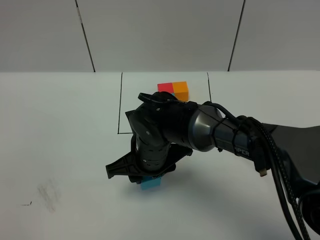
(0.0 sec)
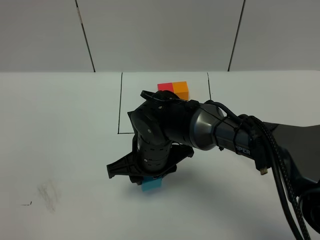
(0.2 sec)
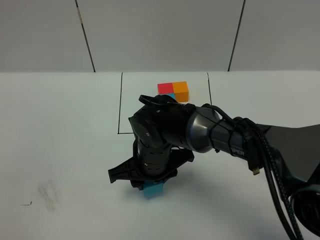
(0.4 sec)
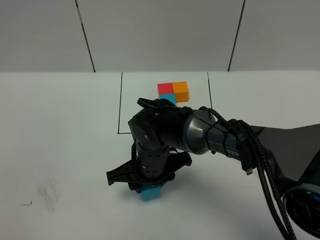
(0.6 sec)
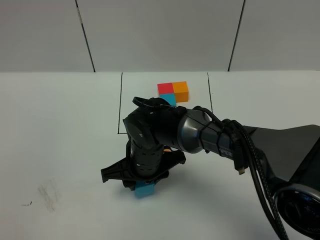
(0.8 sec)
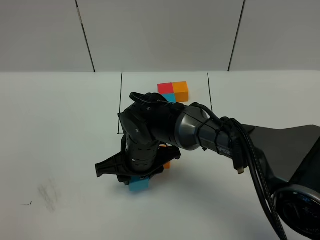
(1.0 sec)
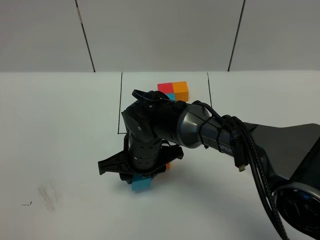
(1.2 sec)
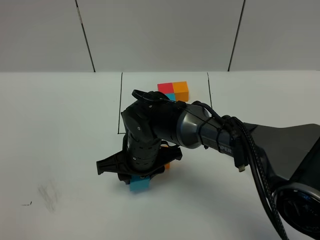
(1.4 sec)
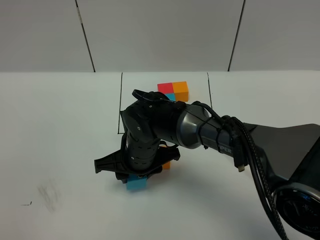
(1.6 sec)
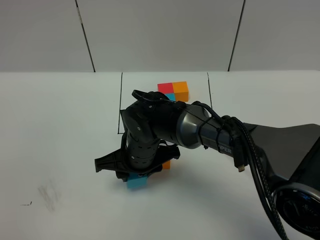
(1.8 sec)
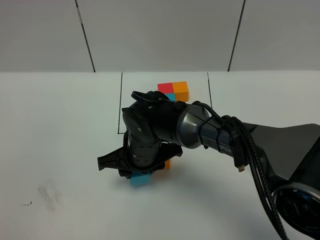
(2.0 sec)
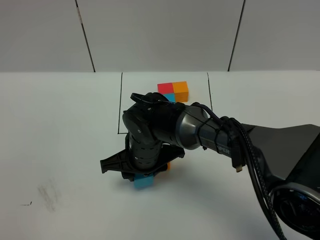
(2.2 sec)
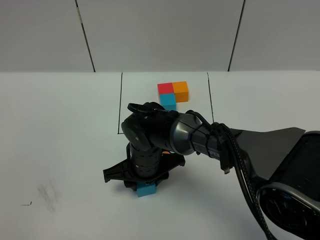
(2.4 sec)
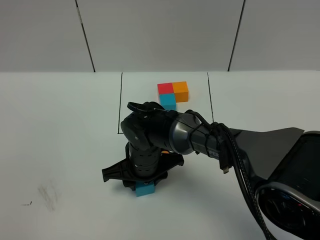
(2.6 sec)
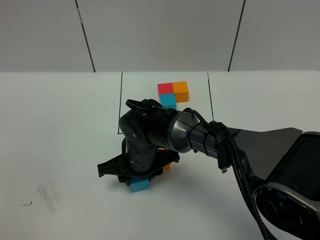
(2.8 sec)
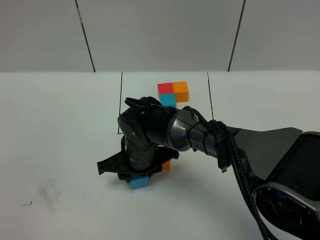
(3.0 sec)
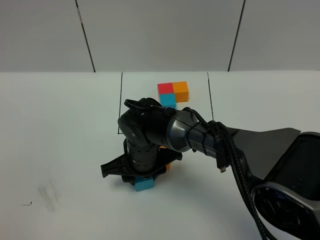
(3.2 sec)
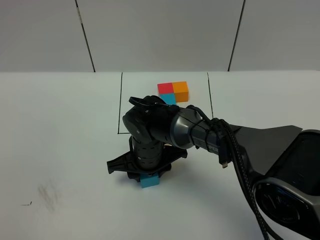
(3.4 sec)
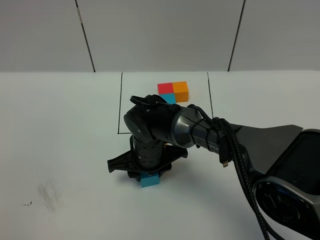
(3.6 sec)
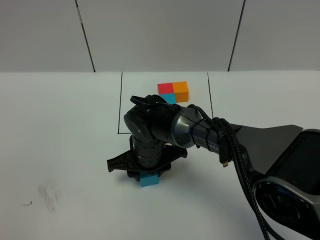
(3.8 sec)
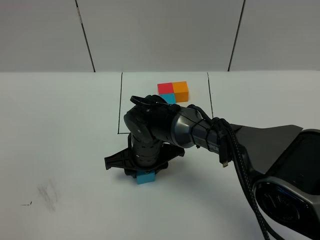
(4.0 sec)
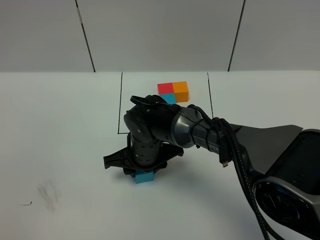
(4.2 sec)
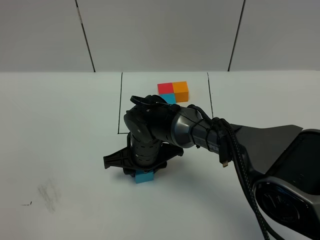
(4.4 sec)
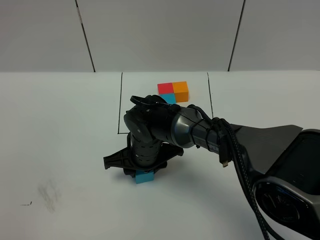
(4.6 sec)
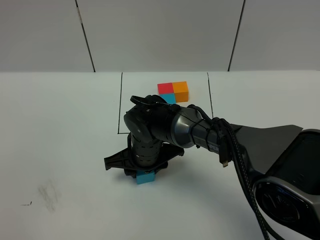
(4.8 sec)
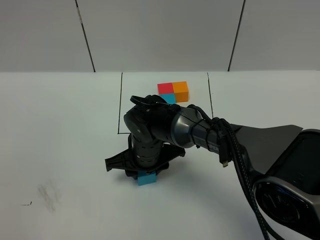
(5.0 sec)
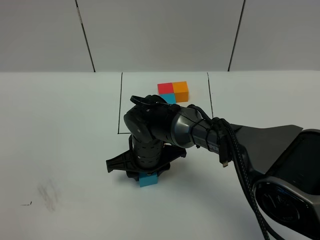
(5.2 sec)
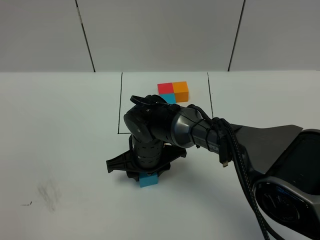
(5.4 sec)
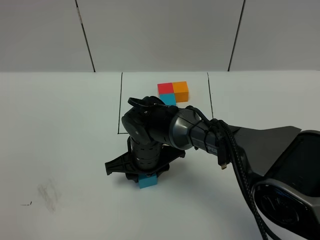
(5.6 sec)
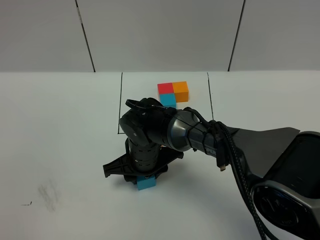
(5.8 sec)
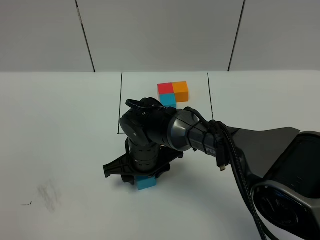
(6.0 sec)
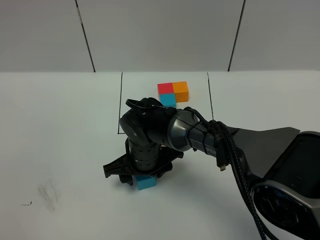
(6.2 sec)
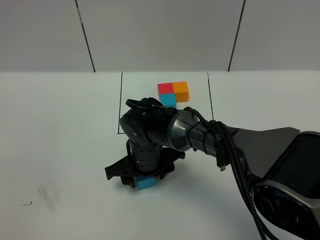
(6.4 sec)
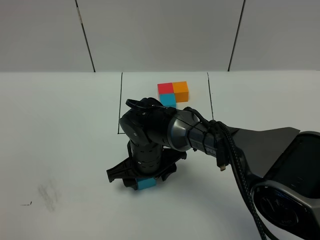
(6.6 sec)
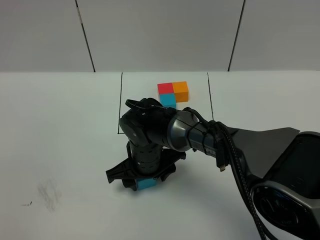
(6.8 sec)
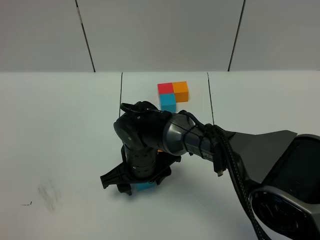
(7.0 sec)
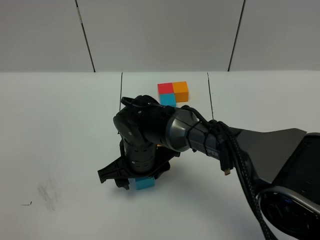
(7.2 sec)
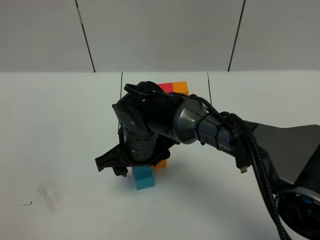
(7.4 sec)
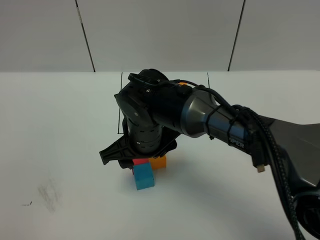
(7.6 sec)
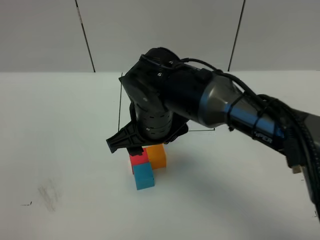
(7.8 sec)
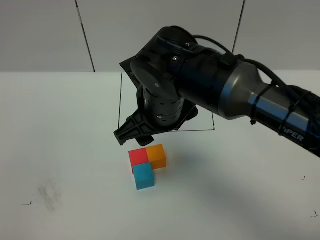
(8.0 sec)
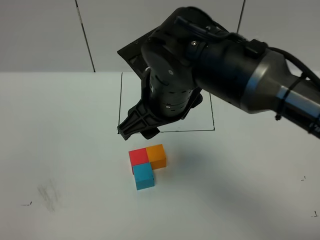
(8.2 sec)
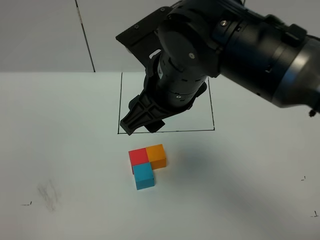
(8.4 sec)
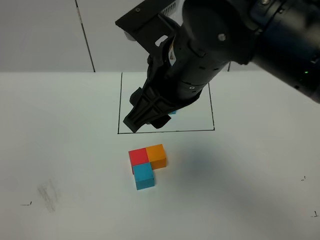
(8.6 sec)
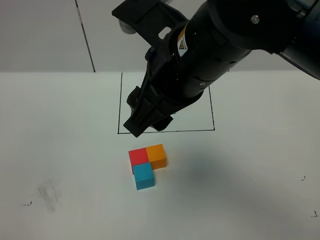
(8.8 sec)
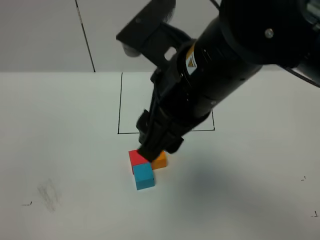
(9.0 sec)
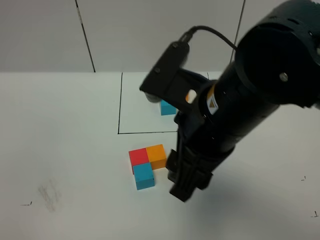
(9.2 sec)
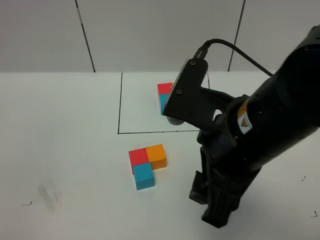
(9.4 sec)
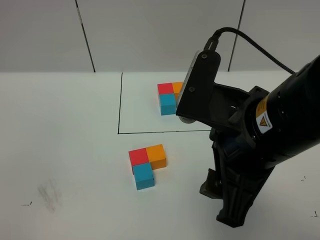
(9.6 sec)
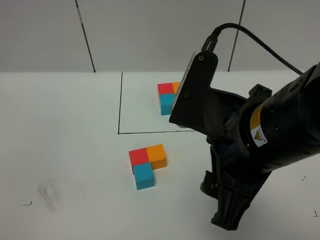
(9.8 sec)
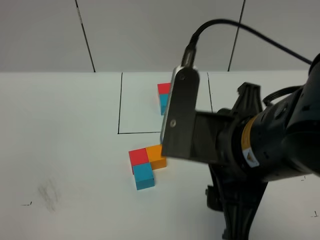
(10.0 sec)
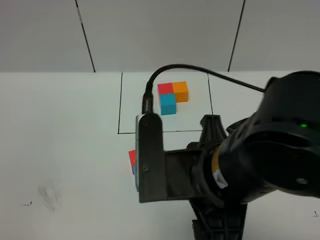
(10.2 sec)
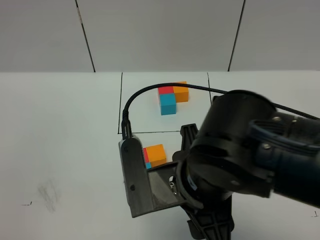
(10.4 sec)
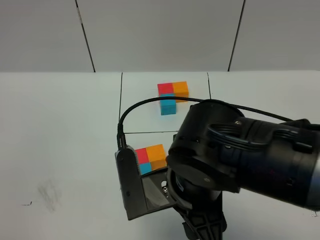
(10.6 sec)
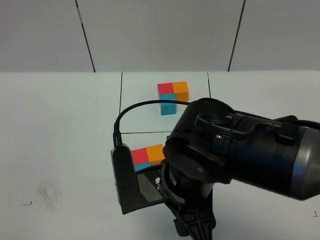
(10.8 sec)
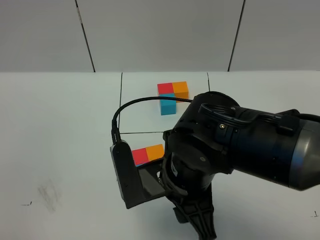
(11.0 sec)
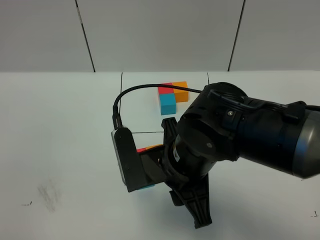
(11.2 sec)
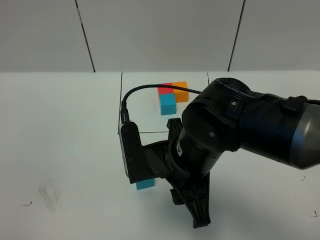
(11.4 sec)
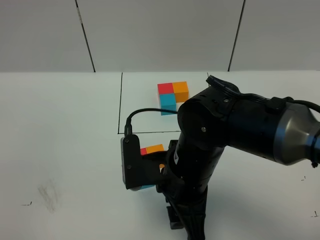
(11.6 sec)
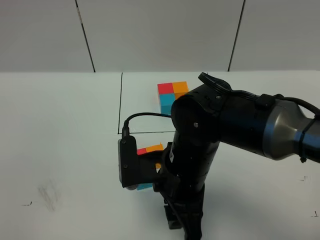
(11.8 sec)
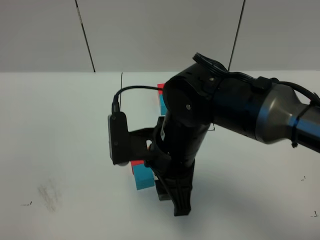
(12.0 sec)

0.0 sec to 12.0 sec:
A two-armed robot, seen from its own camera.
Task of the whole recording: According to the building block template in front, assemble the scattered blocks together.
Step, 0.0 sec to 7.6 sec: Put the blue cube in the front of the red cube.
0.0 sec to 6.0 sec: The grippers make only small movements.
6.0 sec to 7.6 sec: The right gripper travels upward by about 10 cm.
7.6 sec to 9.0 sec: The right gripper is displaced upward, backward and to the right by about 20 cm.
9.0 sec to 10.4 sec: The right gripper moves downward and backward, some 10 cm.
10.4 sec to 12.0 sec: The right gripper travels forward by about 10 cm.

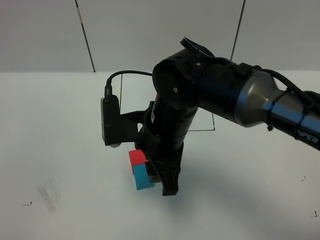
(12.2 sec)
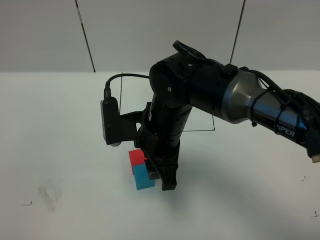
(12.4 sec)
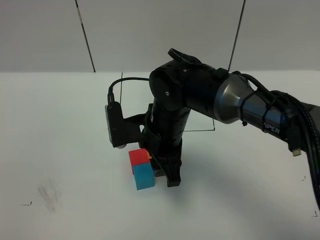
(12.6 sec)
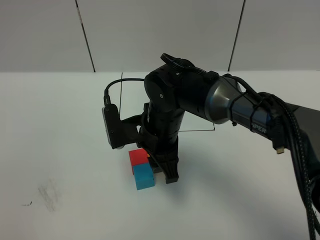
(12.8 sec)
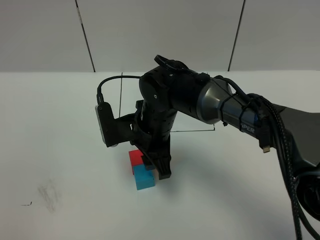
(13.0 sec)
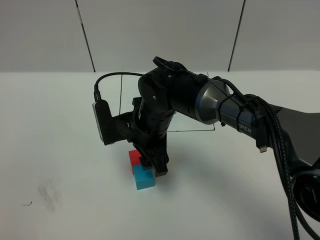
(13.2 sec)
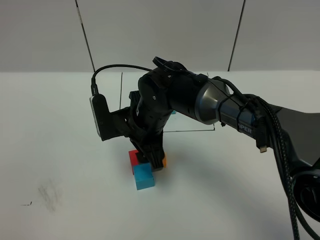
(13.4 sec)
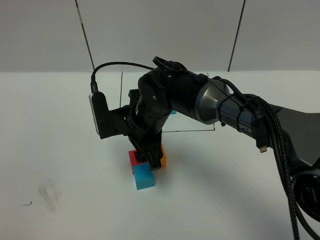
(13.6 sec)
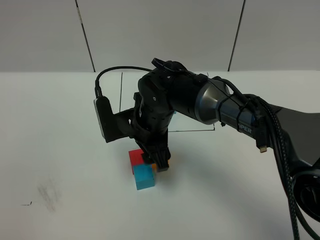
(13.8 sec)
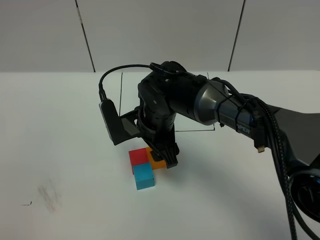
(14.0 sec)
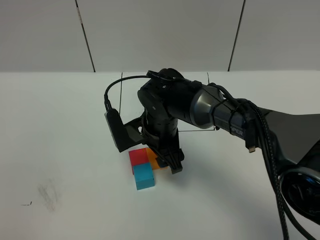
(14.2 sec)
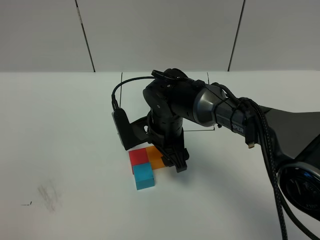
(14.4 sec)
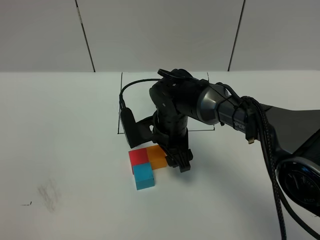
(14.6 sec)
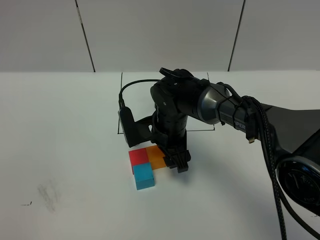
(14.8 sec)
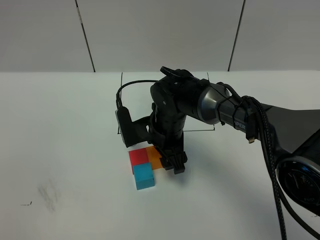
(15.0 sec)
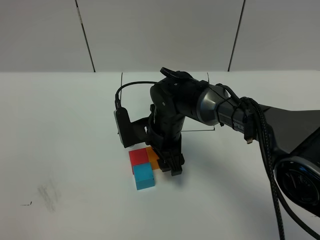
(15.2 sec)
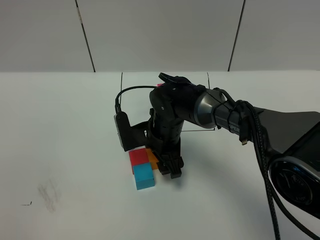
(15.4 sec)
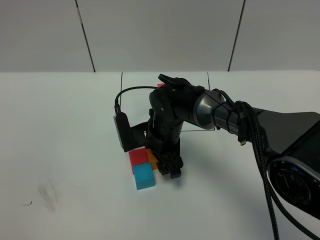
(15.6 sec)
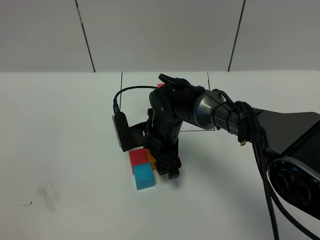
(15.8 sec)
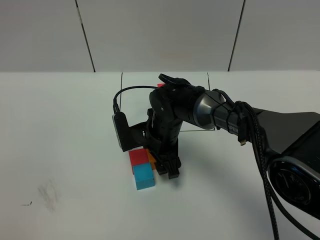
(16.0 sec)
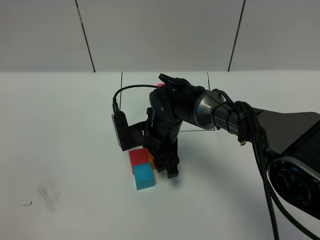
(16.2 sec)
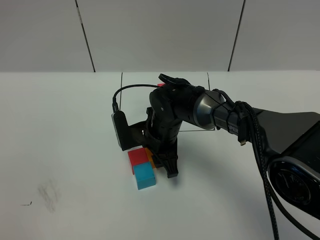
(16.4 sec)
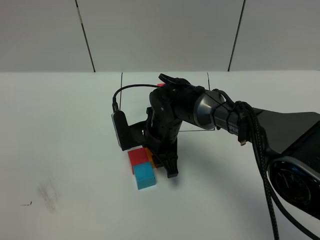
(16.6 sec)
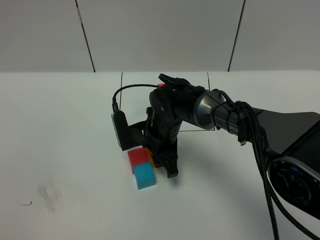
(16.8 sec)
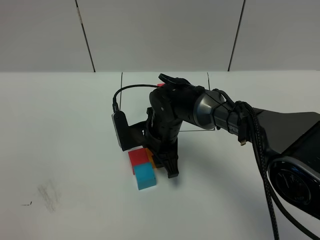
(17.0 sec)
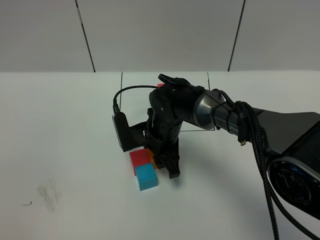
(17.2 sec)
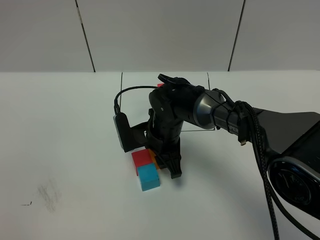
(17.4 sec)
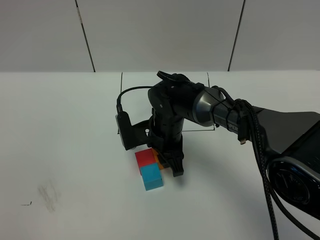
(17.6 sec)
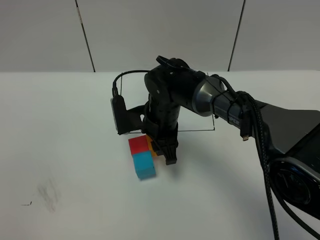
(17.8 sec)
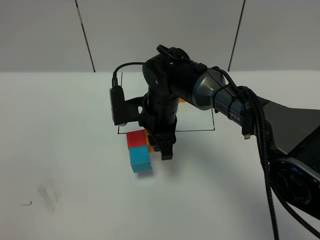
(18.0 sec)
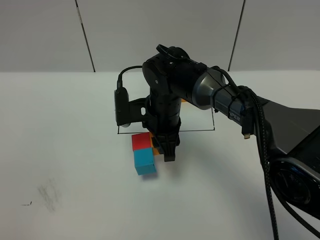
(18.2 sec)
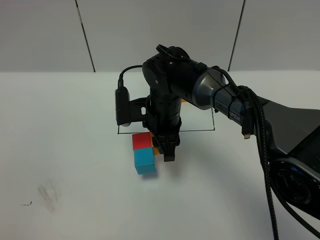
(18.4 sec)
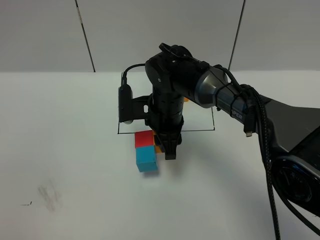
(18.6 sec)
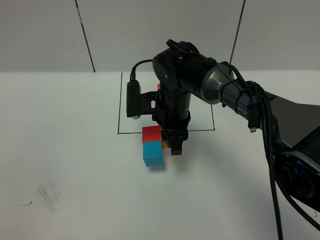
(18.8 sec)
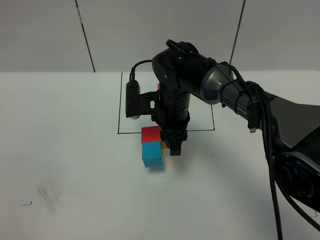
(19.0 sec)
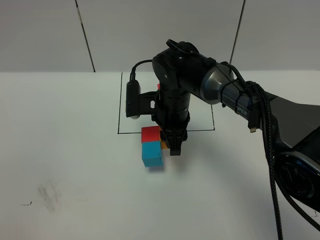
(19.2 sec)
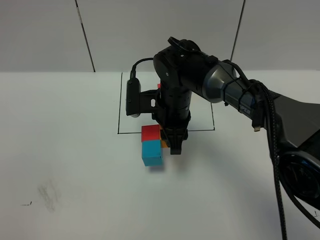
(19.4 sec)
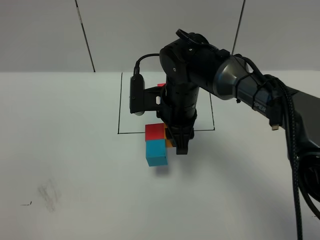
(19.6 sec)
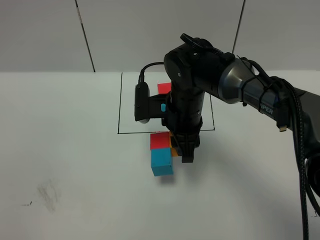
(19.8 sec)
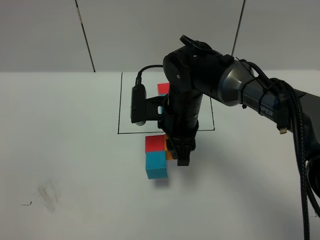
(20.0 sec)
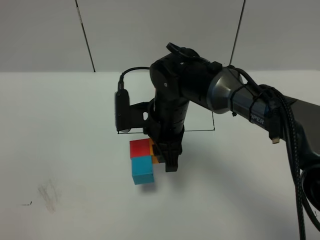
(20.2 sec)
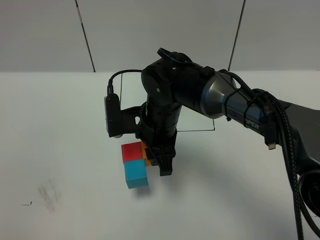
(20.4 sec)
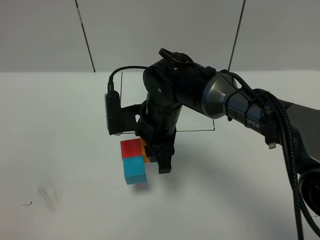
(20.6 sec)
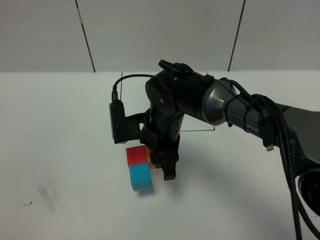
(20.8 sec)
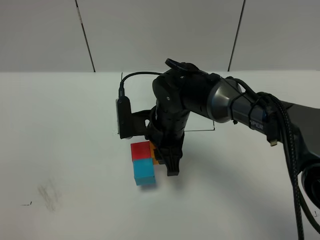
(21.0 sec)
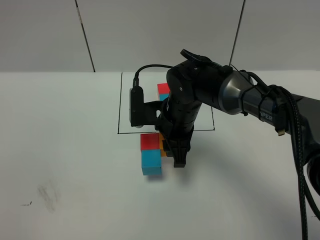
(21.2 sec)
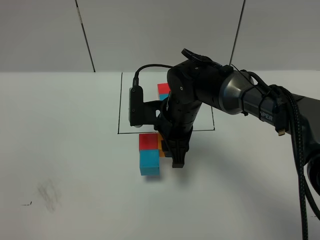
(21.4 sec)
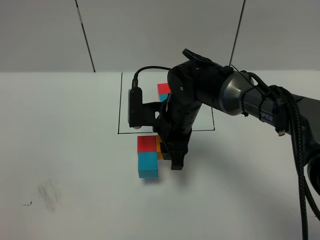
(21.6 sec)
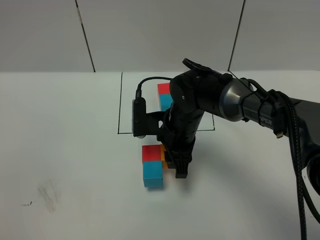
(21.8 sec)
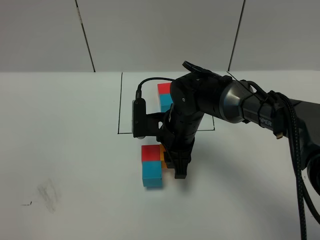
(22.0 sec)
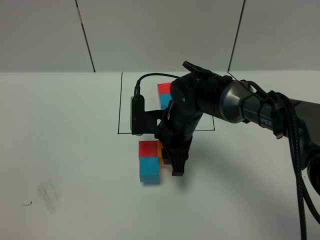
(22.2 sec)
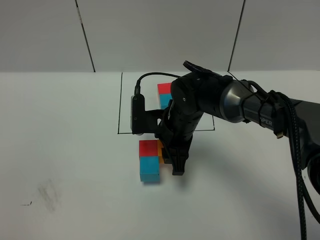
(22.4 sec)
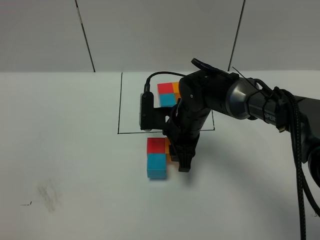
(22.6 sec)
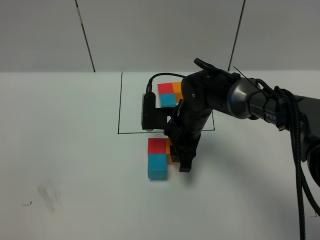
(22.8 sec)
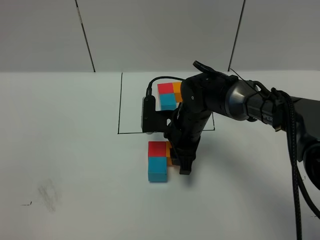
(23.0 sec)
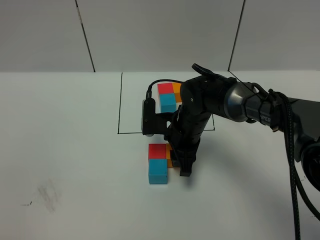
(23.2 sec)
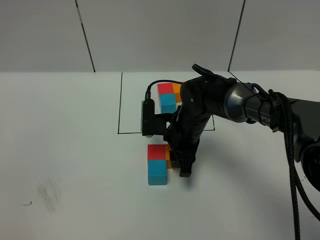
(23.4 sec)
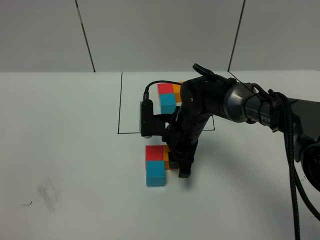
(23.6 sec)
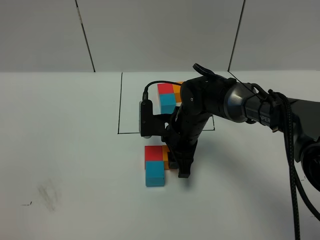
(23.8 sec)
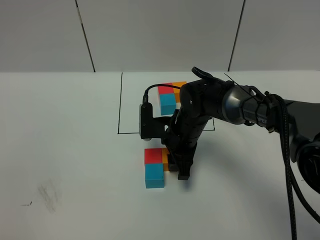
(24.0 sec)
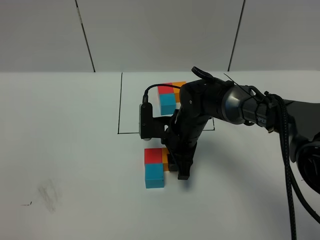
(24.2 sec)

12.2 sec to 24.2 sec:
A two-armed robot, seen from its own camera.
Task of the whole recording: According to the building block template in front, assemble the scattered blocks together.
12.2 sec to 13.8 sec: The right gripper moves forward and downward, about 10 cm, and opens its fingers.
13.8 sec to 15.2 sec: The right gripper changes place by about 5 cm.
15.2 sec to 16.6 sec: The right gripper closes.
16.6 sec to 18.2 sec: The right gripper is displaced upward by some 5 cm.
19.8 sec to 22.6 sec: The grippers make only small movements.
22.6 sec to 24.2 sec: The grippers stay close to where they were, moving slightly.
